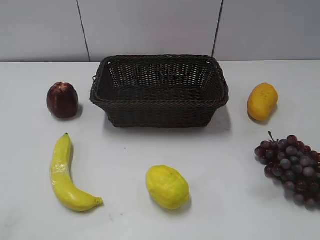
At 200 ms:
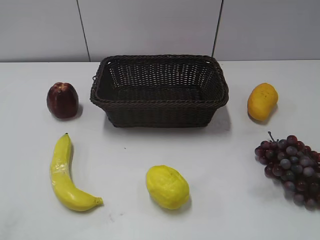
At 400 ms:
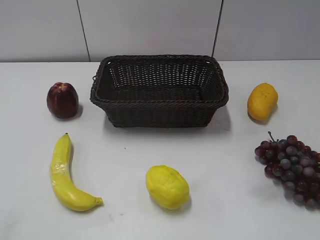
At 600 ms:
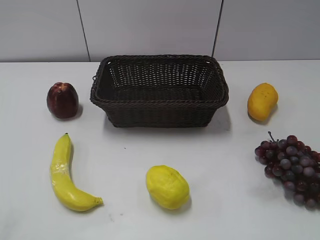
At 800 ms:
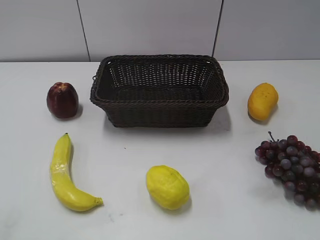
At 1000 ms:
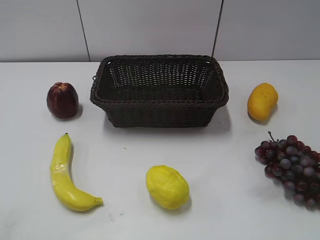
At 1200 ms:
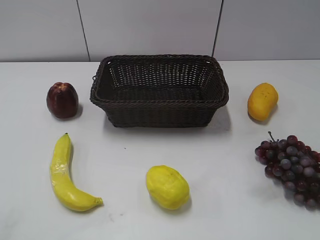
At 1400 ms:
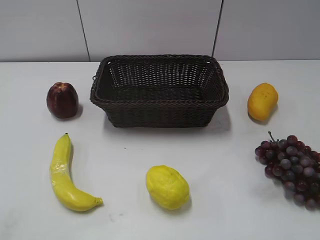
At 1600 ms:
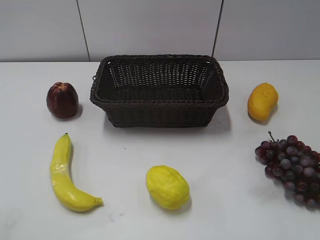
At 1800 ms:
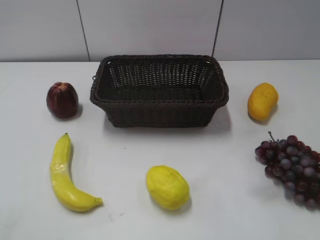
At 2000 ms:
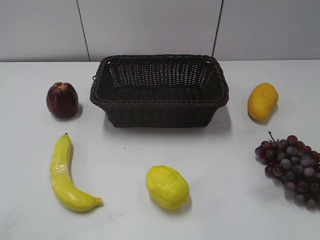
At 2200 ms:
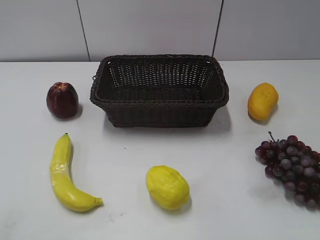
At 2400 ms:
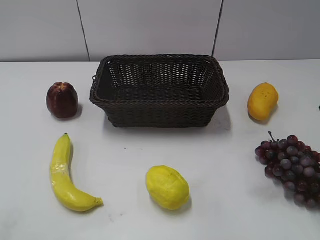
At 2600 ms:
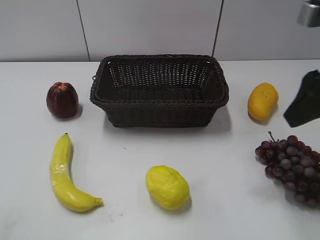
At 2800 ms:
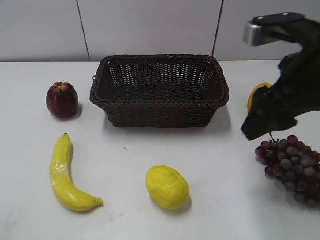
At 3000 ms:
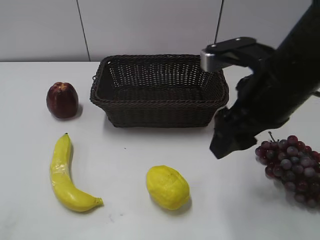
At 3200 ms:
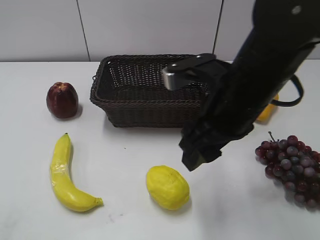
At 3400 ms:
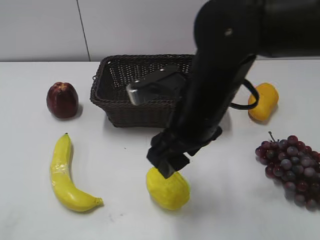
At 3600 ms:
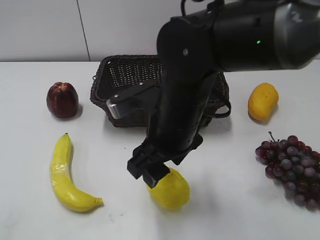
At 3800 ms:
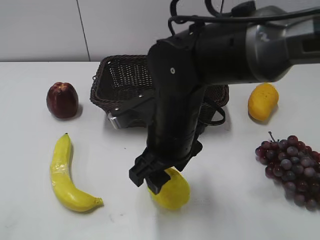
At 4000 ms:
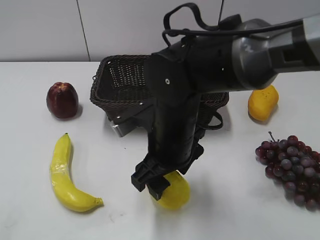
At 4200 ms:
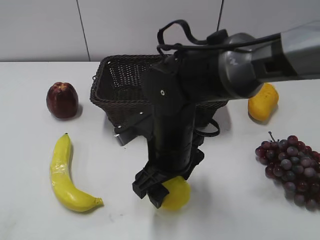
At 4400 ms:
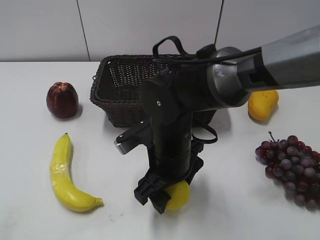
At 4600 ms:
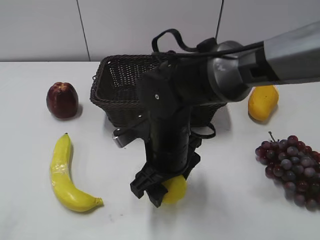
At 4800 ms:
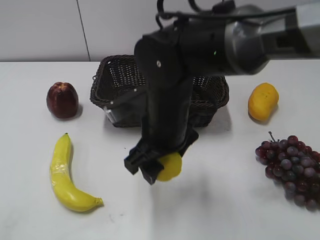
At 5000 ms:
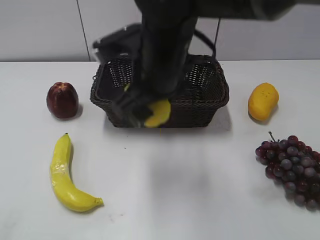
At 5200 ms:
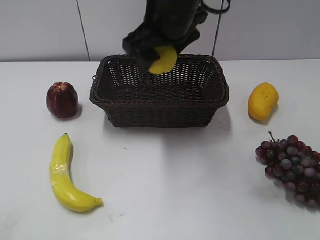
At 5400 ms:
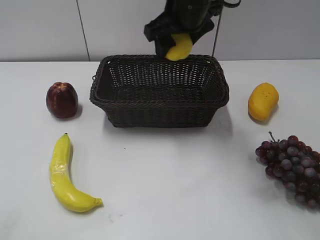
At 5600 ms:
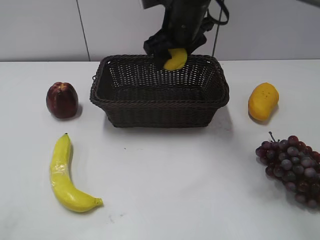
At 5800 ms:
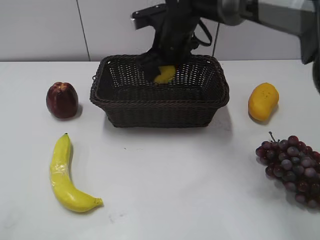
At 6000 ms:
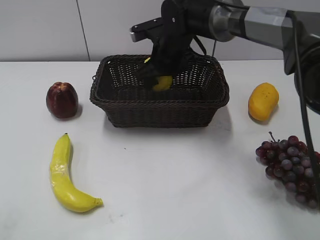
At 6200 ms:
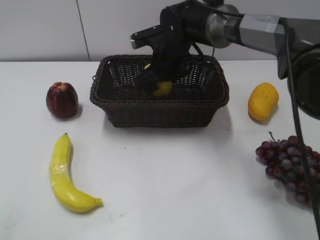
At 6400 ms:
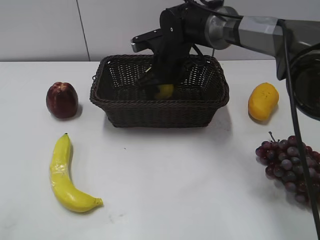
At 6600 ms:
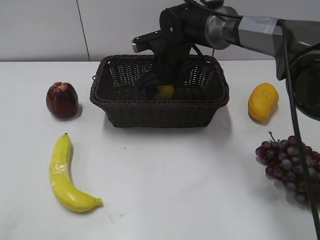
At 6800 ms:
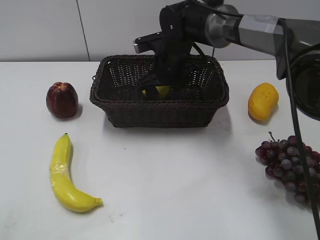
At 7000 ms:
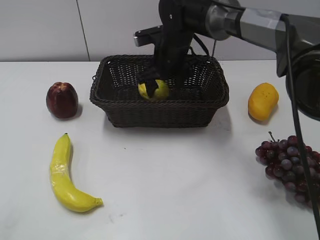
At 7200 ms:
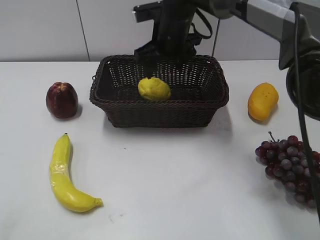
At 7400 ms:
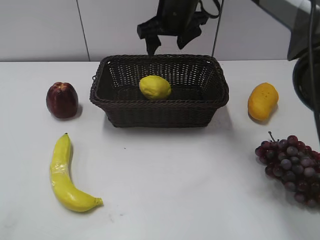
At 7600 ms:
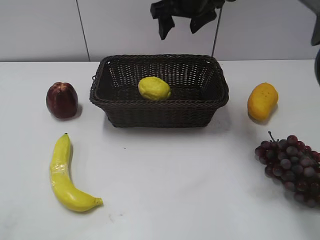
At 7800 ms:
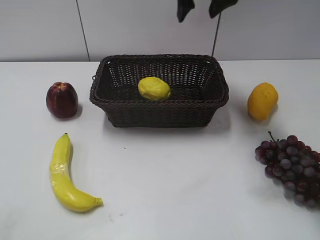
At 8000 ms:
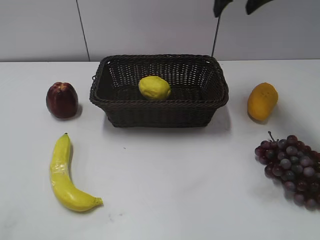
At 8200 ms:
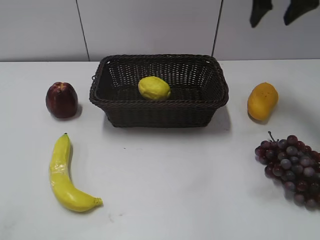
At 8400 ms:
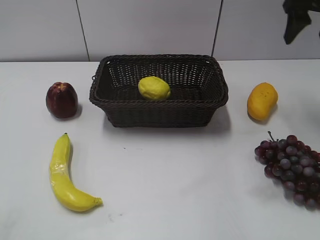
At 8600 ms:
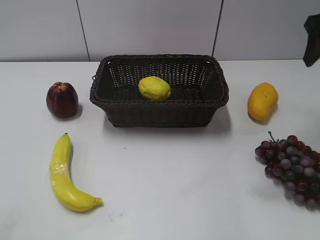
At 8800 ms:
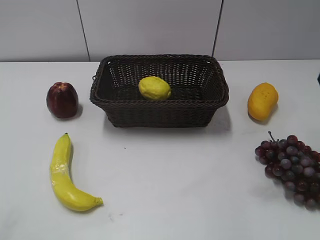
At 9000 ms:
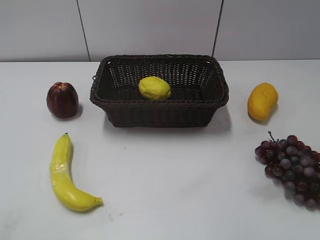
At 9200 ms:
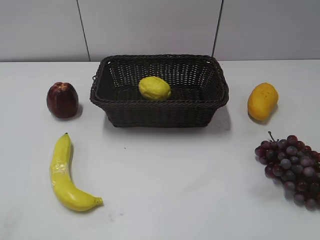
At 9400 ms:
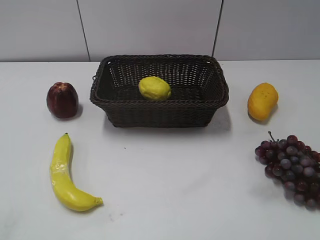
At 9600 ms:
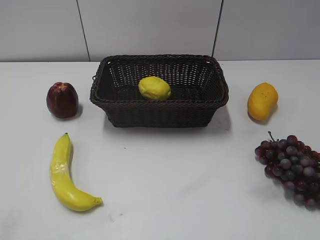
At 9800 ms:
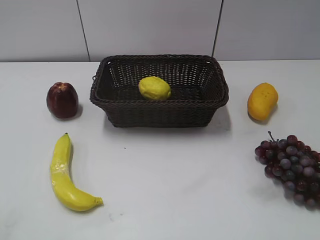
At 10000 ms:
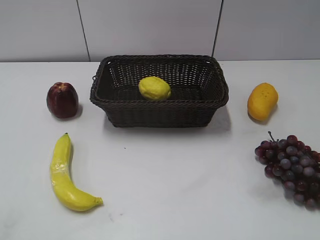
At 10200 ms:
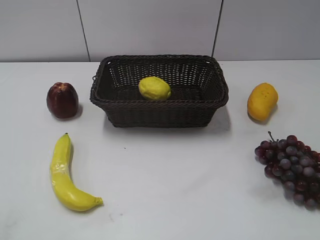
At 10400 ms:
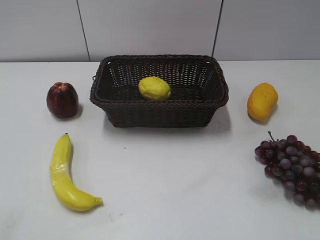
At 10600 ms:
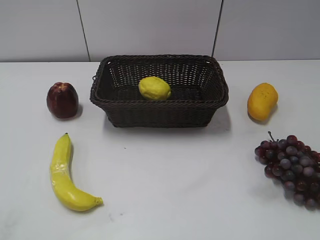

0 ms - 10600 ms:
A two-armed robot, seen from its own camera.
Step, 2400 ms - 4600 ms: Grasp the lemon with right gripper.
Step, 4800 ms - 7000 ms: Place the lemon in the basket with right gripper.
1600 ms - 3000 ms: The right gripper goes roughly 20 cm to the left, forward and downward.
3000 ms - 4600 ms: The right gripper shifts some 15 cm downward and to the left, and opens, then closes again.
4600 ms - 6000 ms: The right gripper goes roughly 20 cm forward.
6000 ms - 7600 ms: The right gripper shifts roughly 15 cm upward, and opens.
7600 ms - 9000 ms: The right gripper moves backward and to the right, approximately 35 cm.
